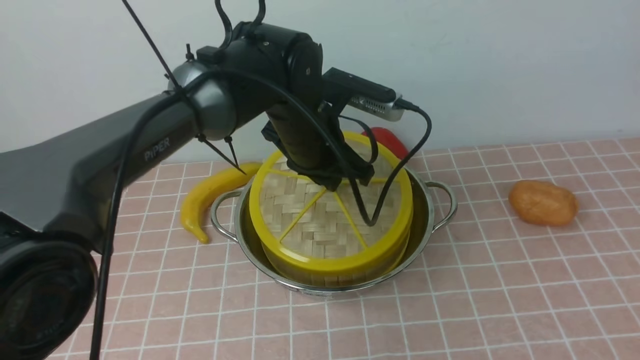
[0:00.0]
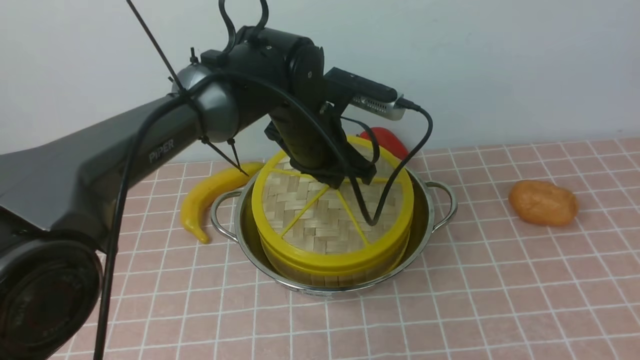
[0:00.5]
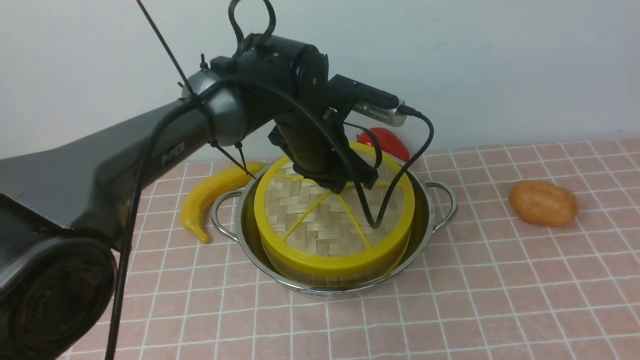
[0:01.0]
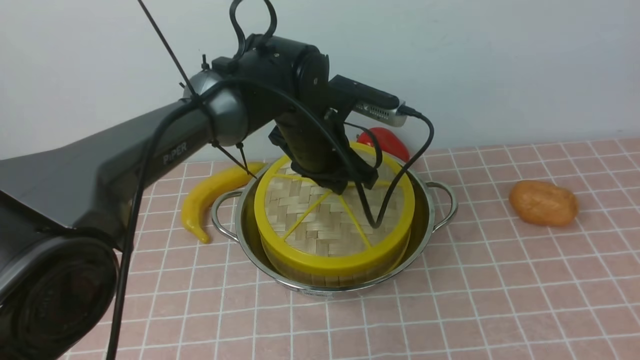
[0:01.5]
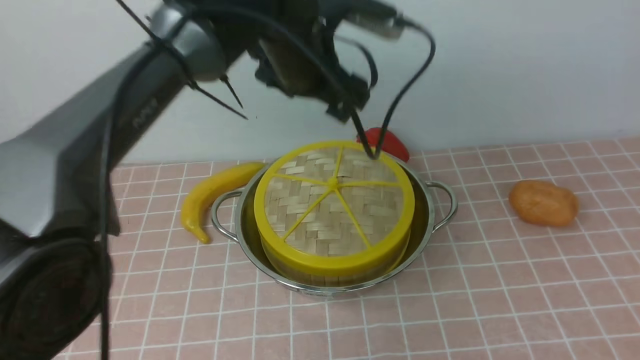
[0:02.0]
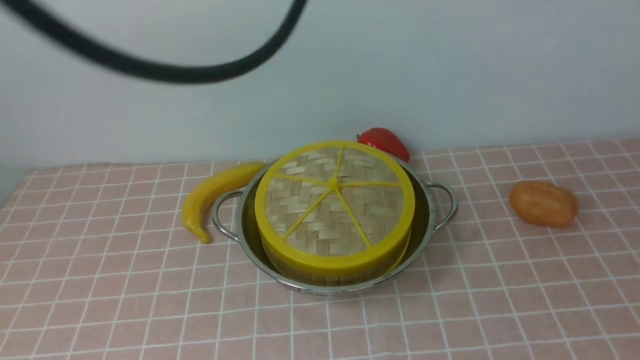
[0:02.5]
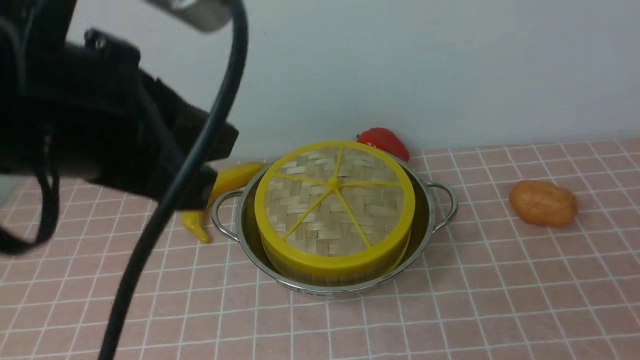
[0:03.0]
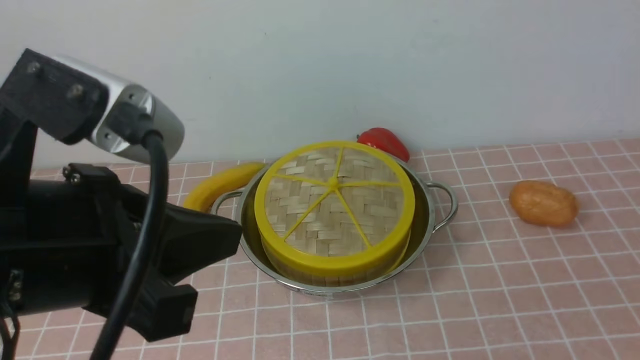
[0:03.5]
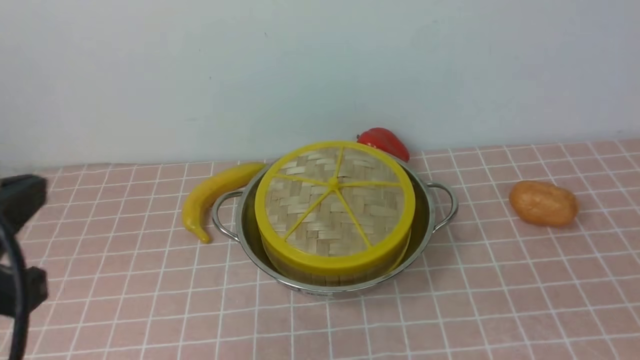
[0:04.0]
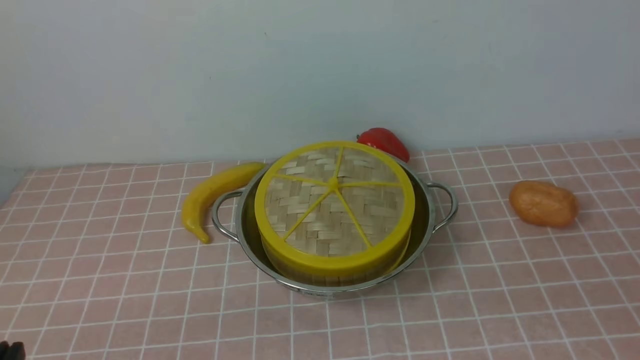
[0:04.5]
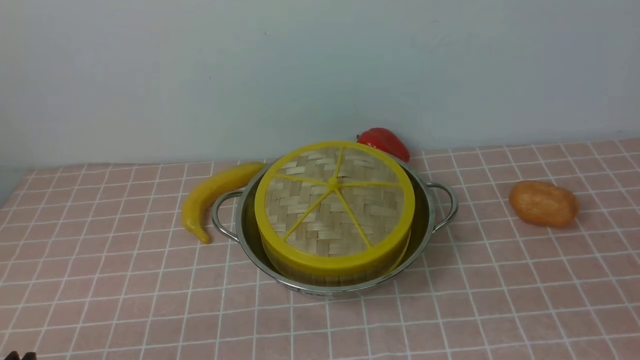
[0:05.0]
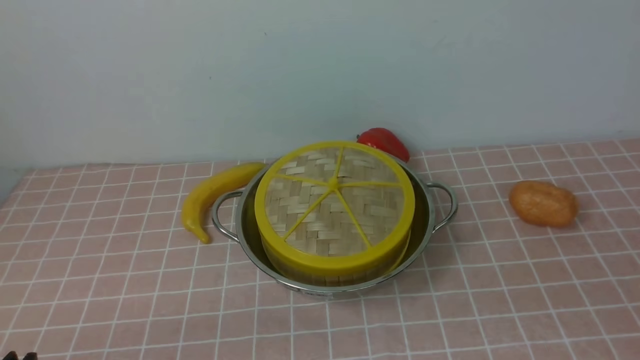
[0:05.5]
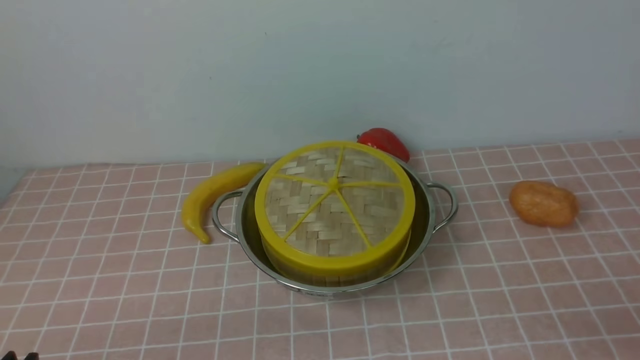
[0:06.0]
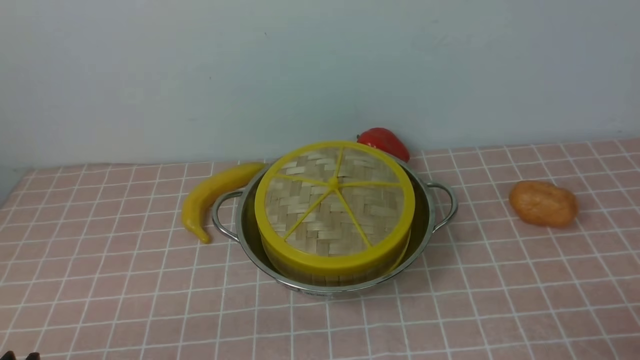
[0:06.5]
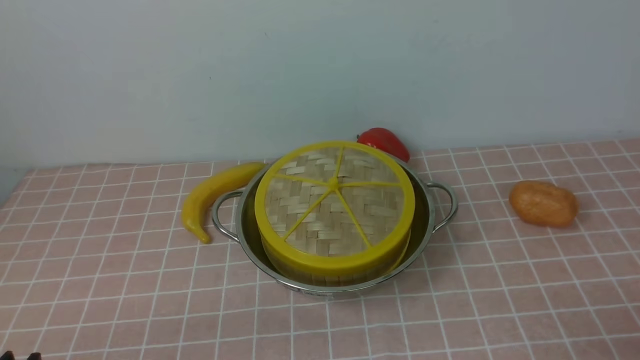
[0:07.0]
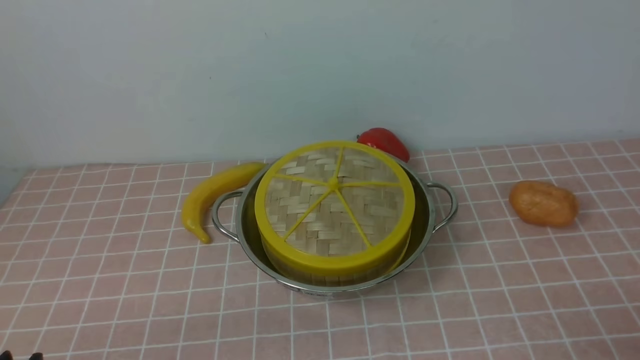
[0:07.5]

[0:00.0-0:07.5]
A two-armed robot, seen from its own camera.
Task of the whole recording: place the steamer in the pot on the pink tablecloth, and put the lid on the steamer.
0:00.0 to 0:02.0: The left gripper is displaced upward by roughly 10 cm, and opens its fingers.
0:02.0 to 0:04.0: The right gripper goes about 25 cm downward and backward, and closes its fingers; the left gripper shifts some 35 cm backward and to the left, and closes up.
0:04.0 to 0:05.5: The left gripper is displaced downward by approximately 15 cm.
